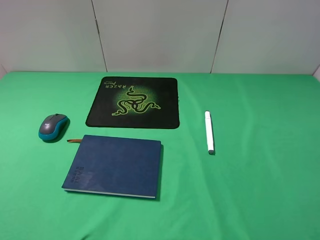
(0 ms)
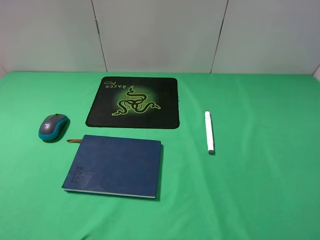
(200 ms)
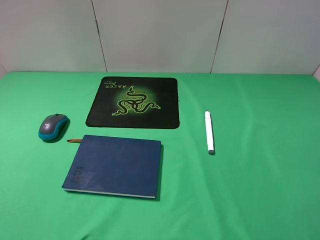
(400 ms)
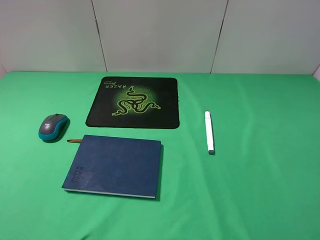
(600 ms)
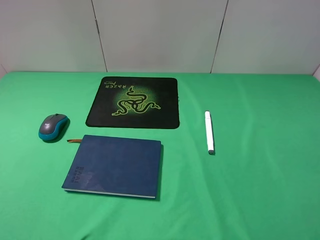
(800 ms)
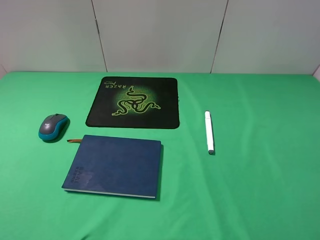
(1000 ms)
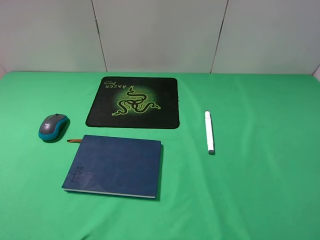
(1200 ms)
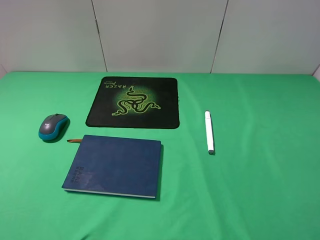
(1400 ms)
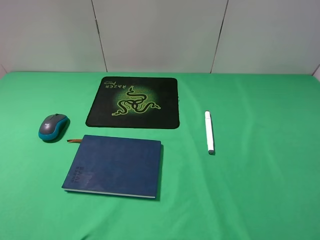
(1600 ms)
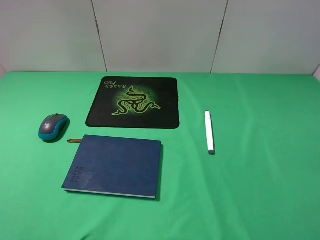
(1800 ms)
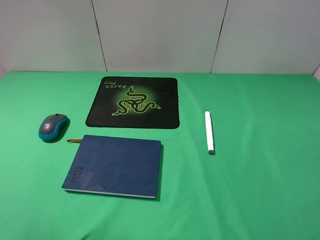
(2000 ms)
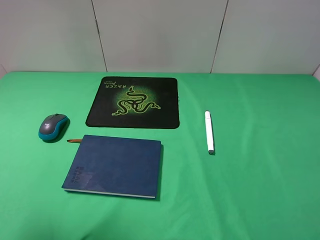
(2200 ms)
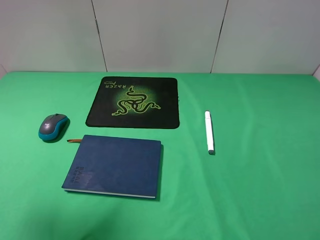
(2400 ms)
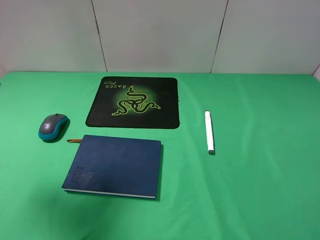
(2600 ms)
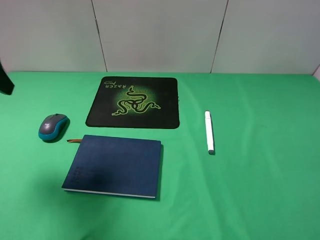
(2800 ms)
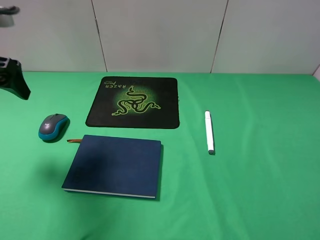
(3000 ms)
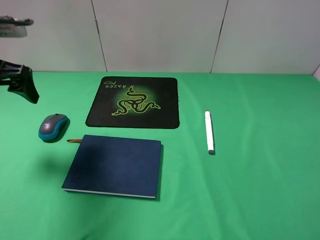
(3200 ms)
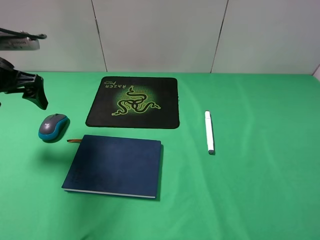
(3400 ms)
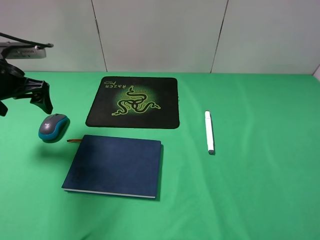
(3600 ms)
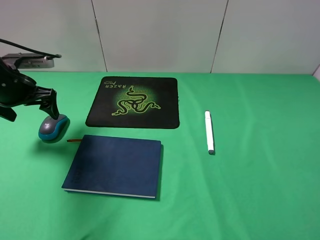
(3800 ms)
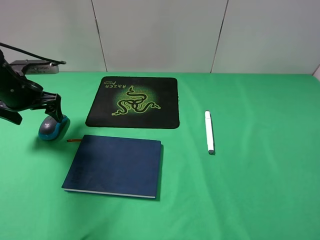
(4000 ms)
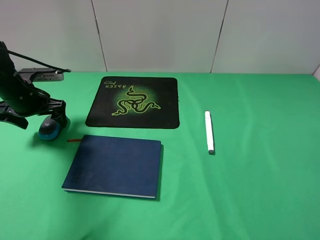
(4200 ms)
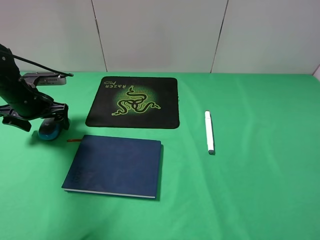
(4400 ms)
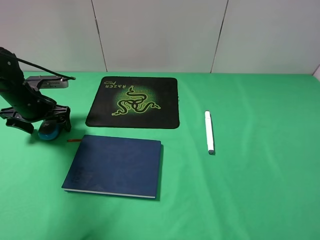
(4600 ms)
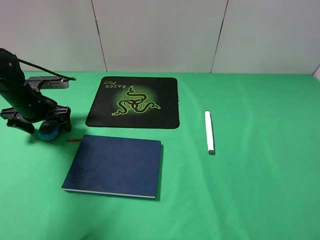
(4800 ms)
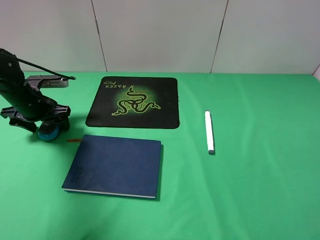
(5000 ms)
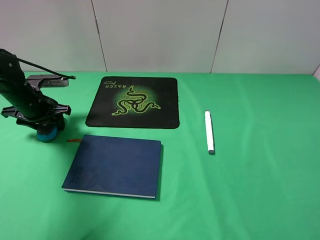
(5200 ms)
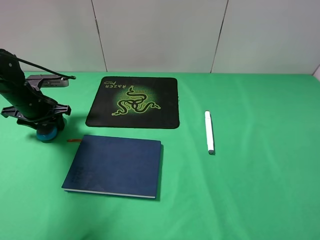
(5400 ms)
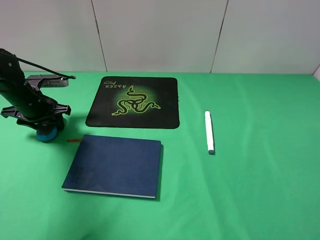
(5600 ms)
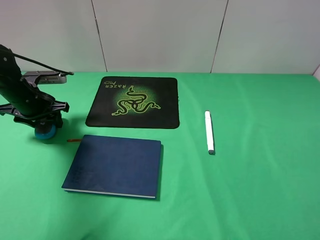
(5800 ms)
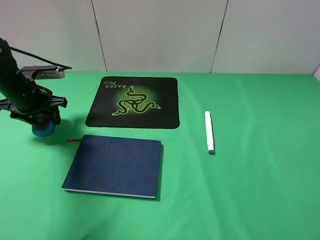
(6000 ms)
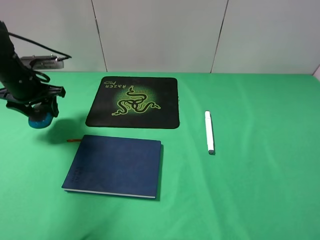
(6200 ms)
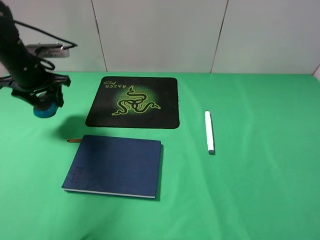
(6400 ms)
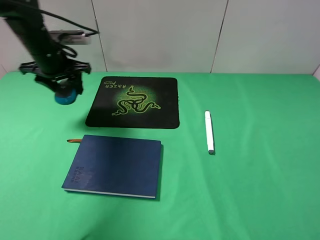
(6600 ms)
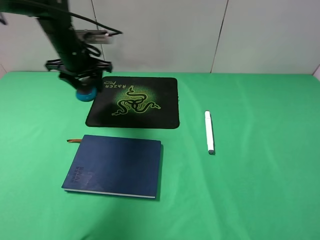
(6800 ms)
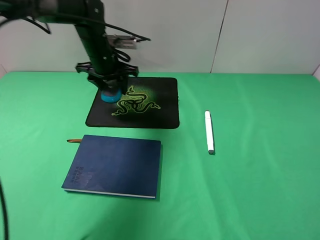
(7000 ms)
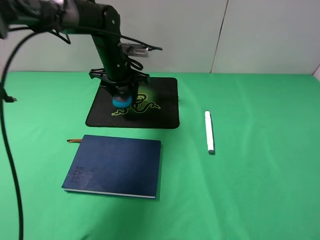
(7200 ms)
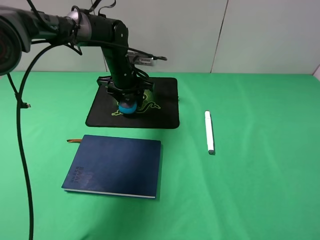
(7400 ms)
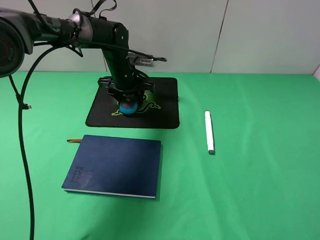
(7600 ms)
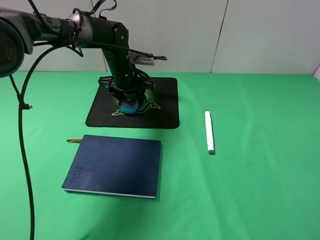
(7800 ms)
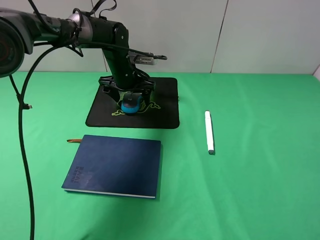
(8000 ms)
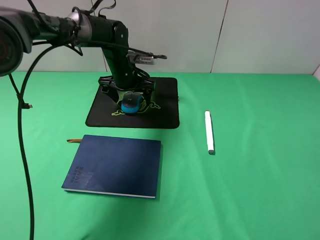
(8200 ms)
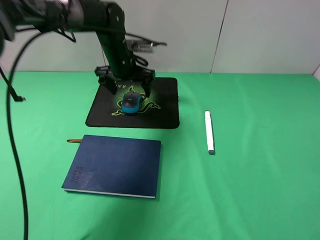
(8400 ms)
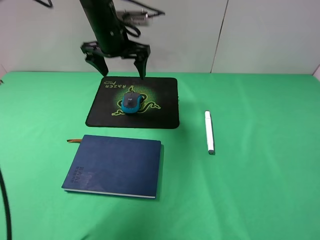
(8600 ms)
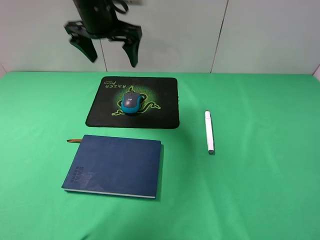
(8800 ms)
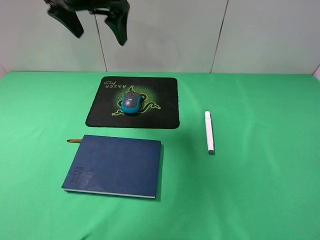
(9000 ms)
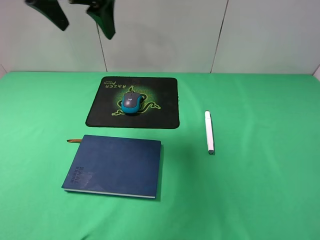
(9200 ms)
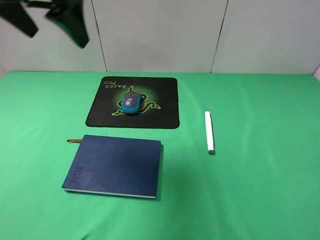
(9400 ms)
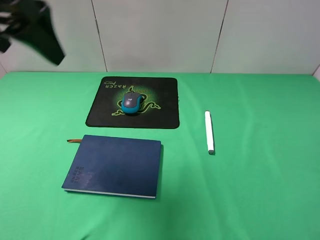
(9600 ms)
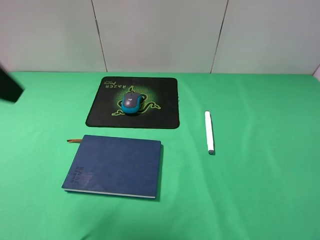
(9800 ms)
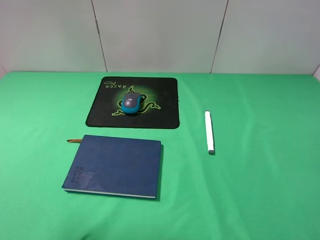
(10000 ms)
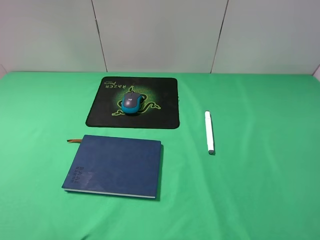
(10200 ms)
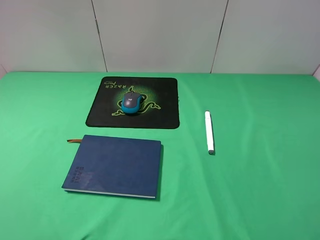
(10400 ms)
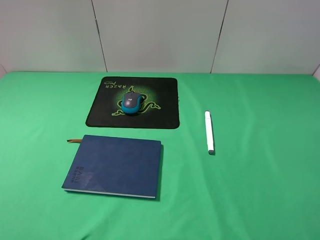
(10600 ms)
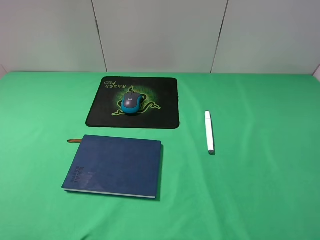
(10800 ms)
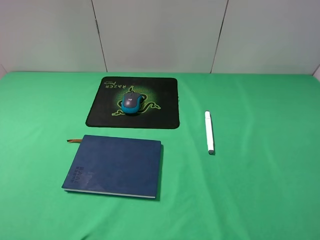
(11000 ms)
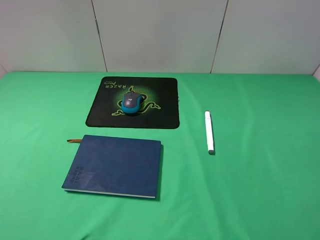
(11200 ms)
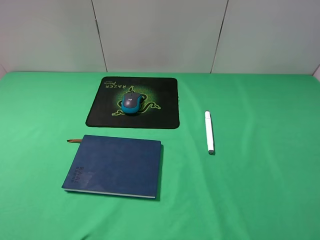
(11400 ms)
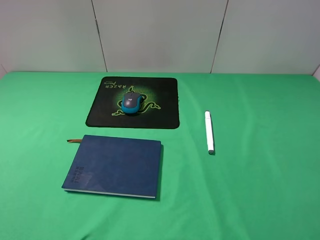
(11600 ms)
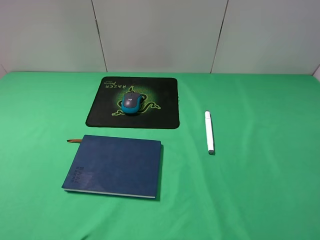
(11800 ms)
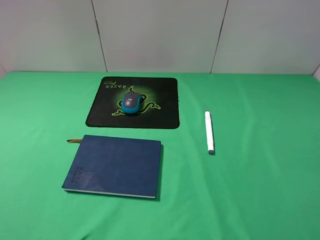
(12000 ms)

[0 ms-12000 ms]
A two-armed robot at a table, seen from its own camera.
Step, 0 ms to 5400 ms: Grasp the mouse with the left gripper.
Step, 5600 ms to 8200 ms: Place the mouse on the mouse pad with the left gripper.
1600 ms to 3000 ms: The left gripper travels forward by roughly 25 cm.
3000 ms to 4400 ms: The left gripper shifts approximately 20 cm downward and forward.
4400 ms to 6000 ms: The left gripper closes its fingers.
6000 ms to 7600 ms: The left gripper heads to the right and forward, covering about 25 cm.
7600 ms to 9000 ms: The left gripper is displaced upward by roughly 25 cm, and opens.
9000 ms to 10400 ms: The left gripper moves backward and to the left, roughly 35 cm.

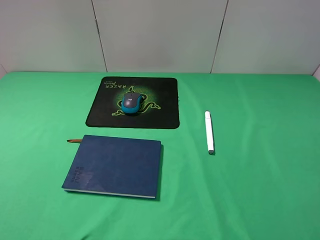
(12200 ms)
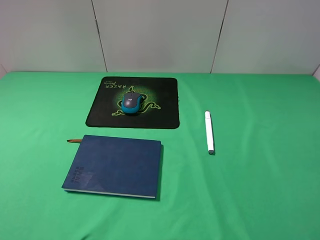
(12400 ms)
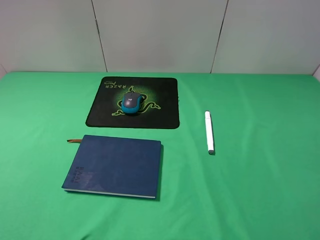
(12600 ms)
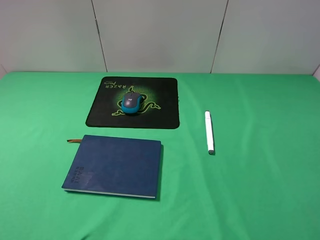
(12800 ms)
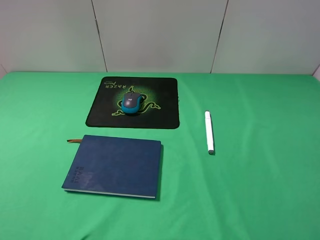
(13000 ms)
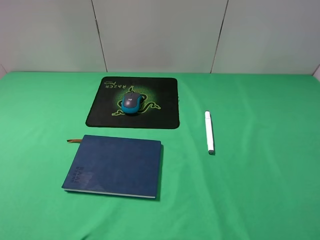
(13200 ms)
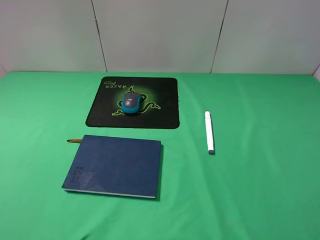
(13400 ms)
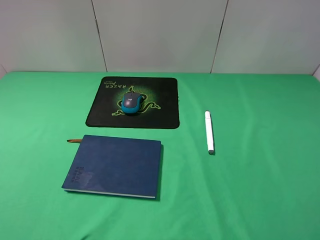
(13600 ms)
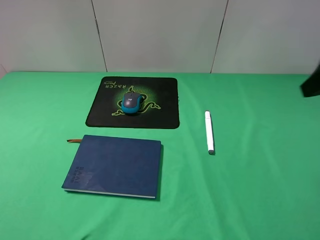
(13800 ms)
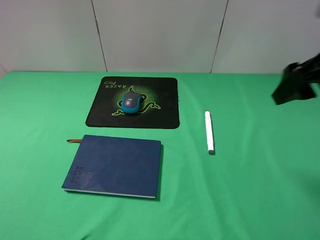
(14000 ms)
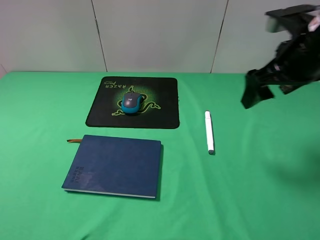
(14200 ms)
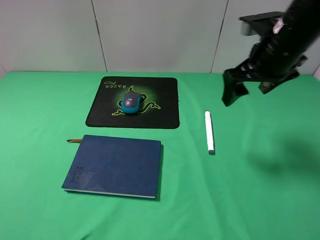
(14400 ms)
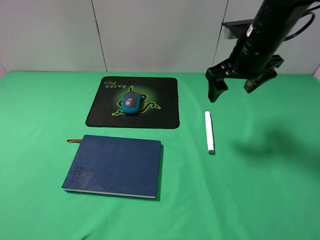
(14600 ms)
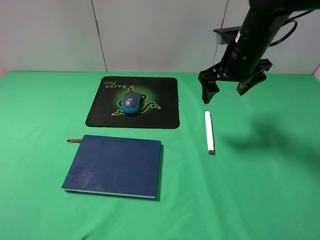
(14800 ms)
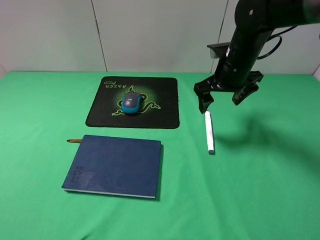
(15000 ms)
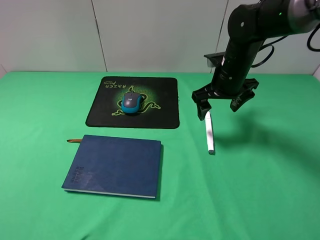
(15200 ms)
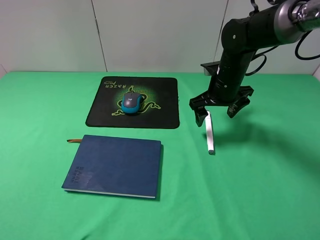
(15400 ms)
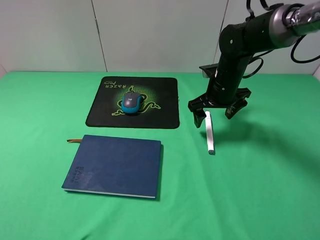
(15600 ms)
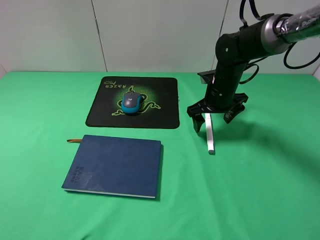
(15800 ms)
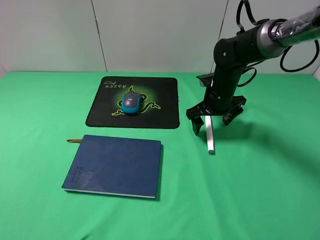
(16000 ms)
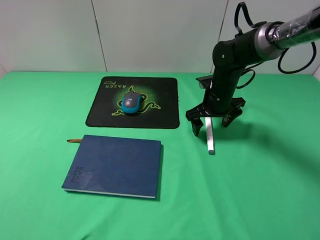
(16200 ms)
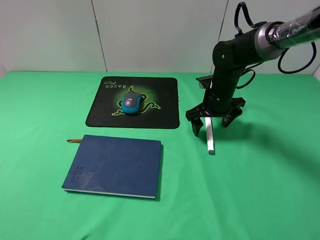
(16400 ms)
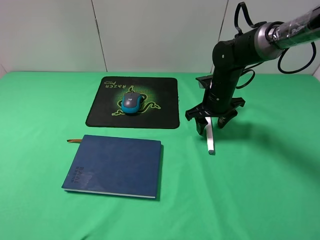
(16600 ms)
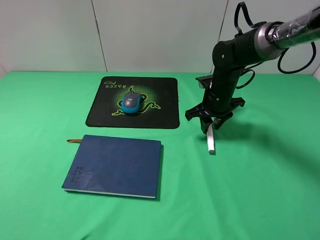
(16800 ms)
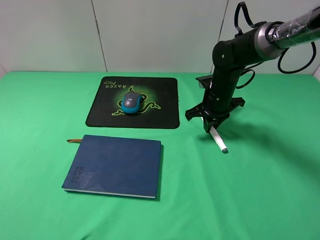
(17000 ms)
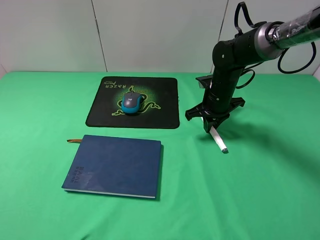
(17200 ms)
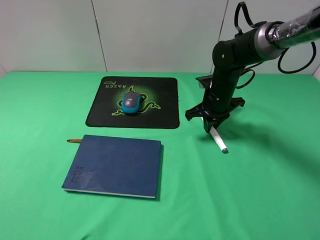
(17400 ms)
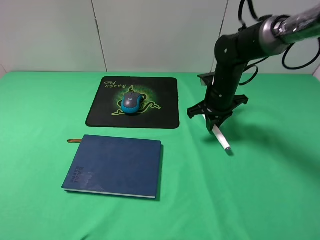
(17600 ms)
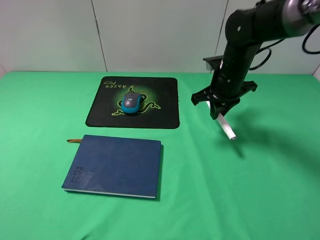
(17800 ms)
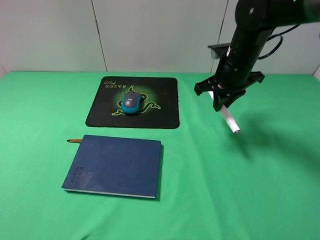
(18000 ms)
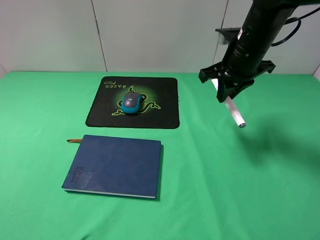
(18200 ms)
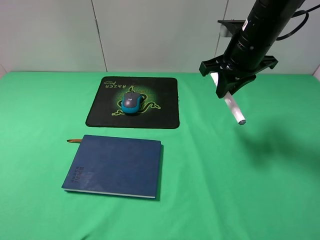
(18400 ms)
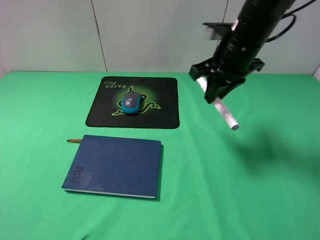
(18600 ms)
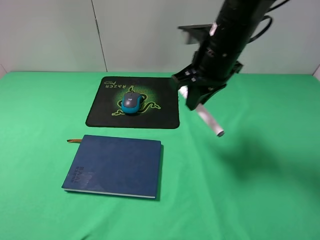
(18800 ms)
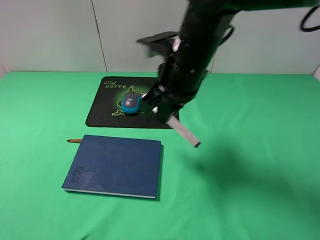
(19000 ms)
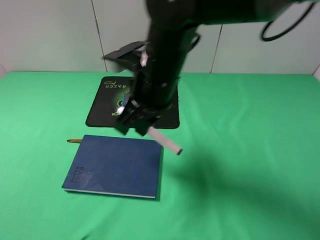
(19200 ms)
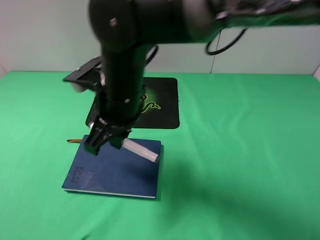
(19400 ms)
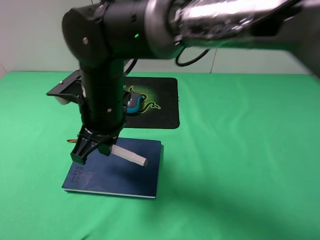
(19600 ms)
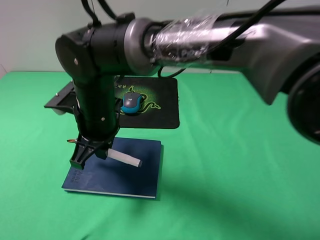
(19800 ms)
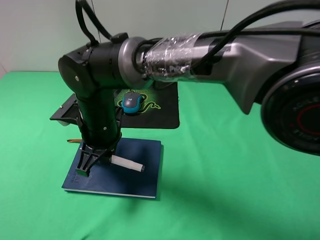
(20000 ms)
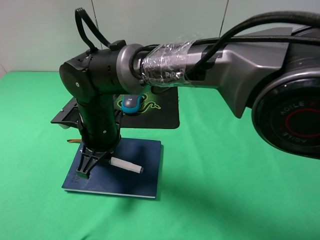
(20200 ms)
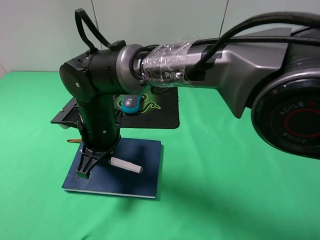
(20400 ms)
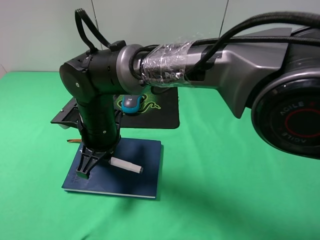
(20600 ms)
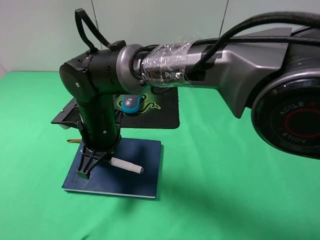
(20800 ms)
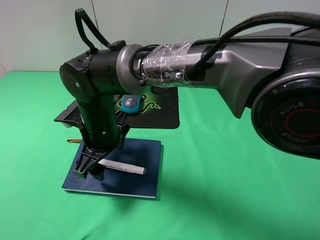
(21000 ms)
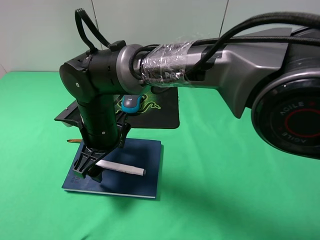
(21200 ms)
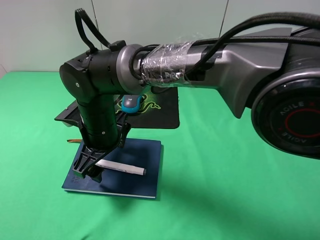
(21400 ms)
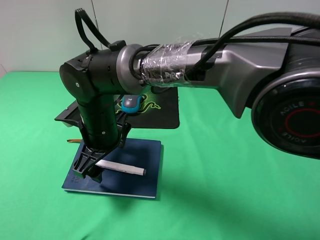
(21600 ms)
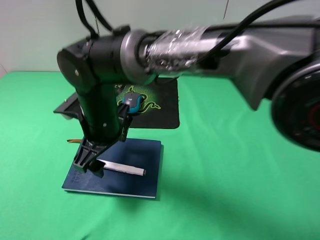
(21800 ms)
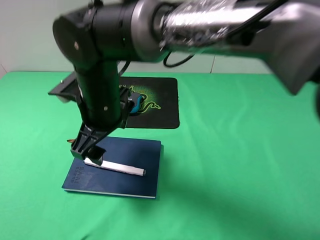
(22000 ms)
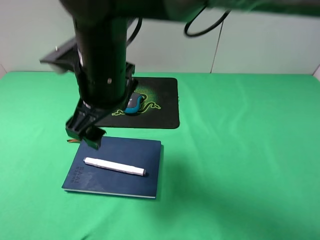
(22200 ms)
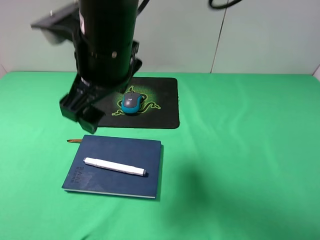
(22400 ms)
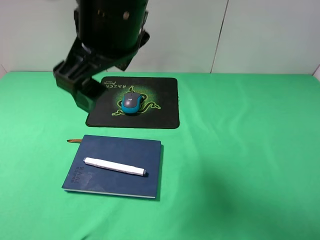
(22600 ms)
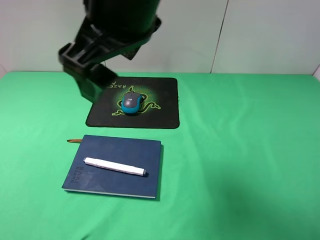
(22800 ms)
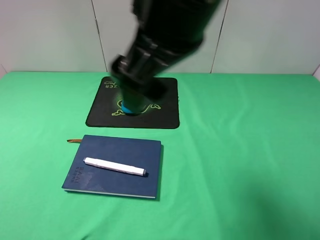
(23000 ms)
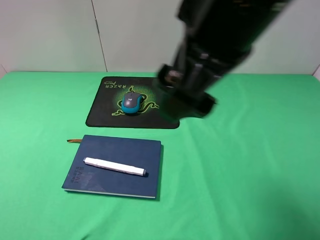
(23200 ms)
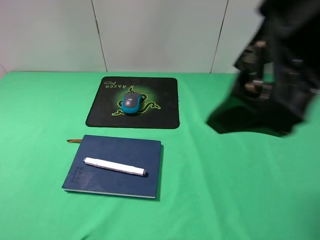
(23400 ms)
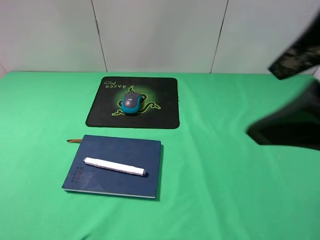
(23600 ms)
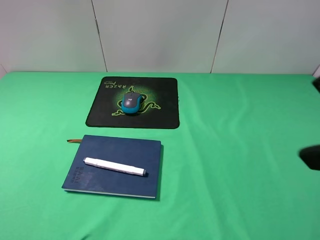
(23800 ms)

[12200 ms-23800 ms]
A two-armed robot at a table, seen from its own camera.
Step, 12200 ms to 16800 ms: Grasp the marker with the right gripper.
Step, 17000 ms to 21200 ms: Place the marker on the notebook with the right gripper.
13600 ms to 15000 ms: The right gripper moves forward, downward and to the left, approximately 30 cm.
15000 ms to 16600 ms: The right gripper heads downward, covering roughly 10 cm, and closes its fingers.
16600 ms to 18000 ms: The right gripper goes approximately 10 cm upward, and closes.
18000 ms to 19400 ms: The right gripper goes about 25 cm to the left and backward.
19400 ms to 21000 ms: The right gripper moves downward, approximately 10 cm, and opens up.
21000 ms to 22400 ms: The right gripper travels upward by approximately 15 cm.
22400 ms to 23800 ms: The right gripper travels to the right and backward by some 30 cm.
